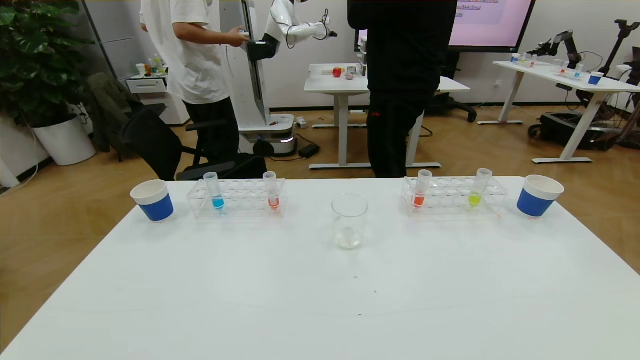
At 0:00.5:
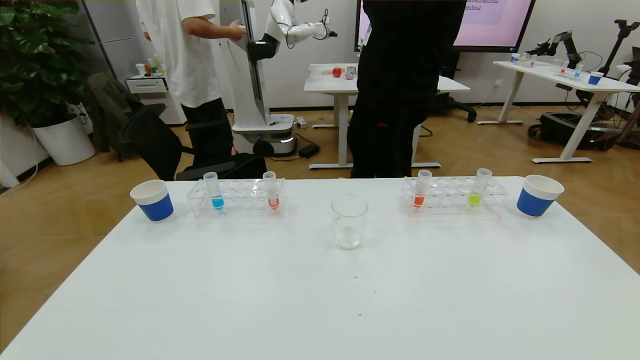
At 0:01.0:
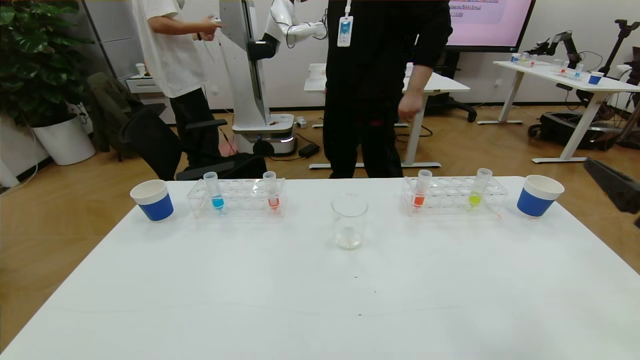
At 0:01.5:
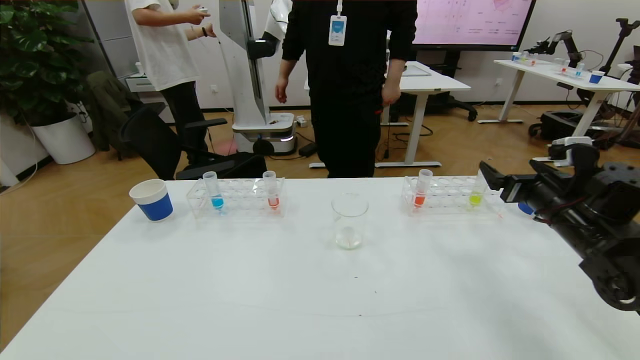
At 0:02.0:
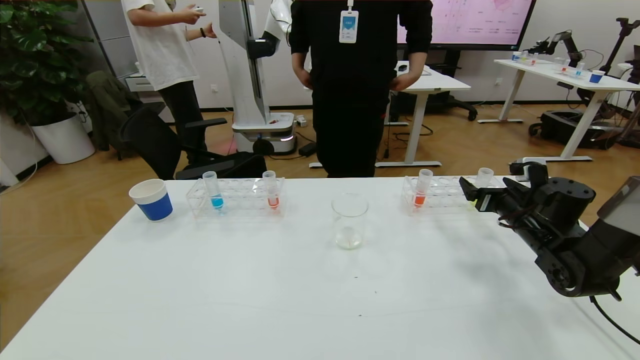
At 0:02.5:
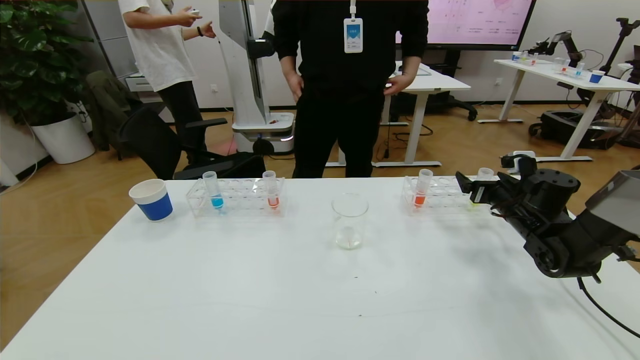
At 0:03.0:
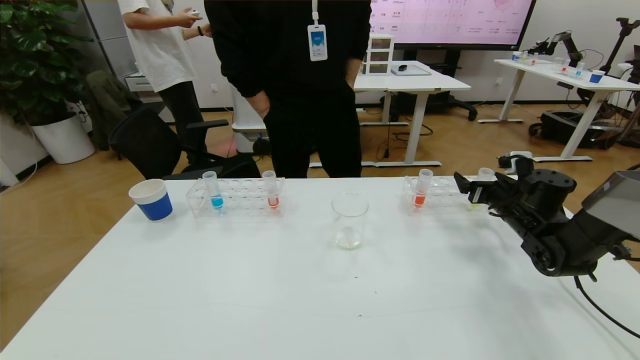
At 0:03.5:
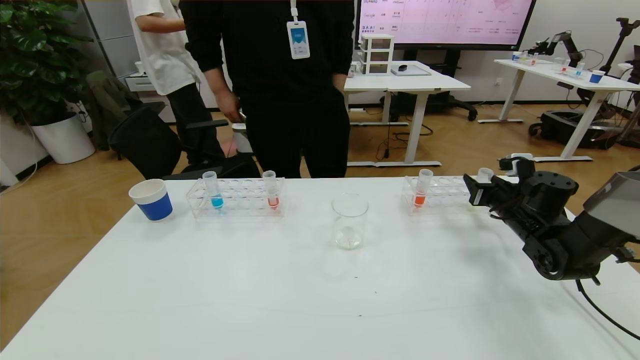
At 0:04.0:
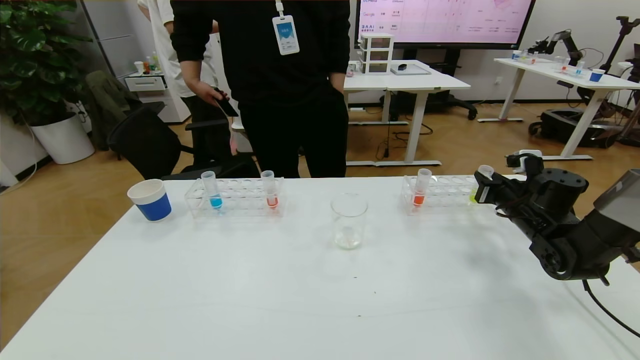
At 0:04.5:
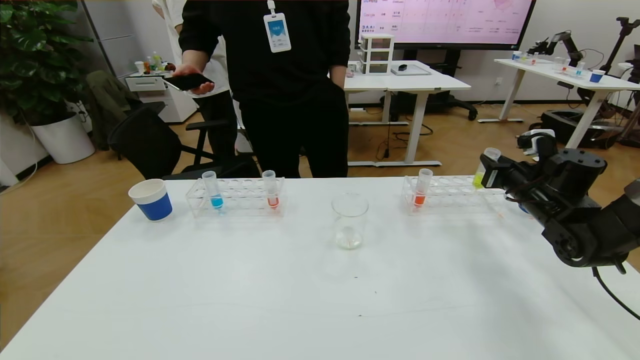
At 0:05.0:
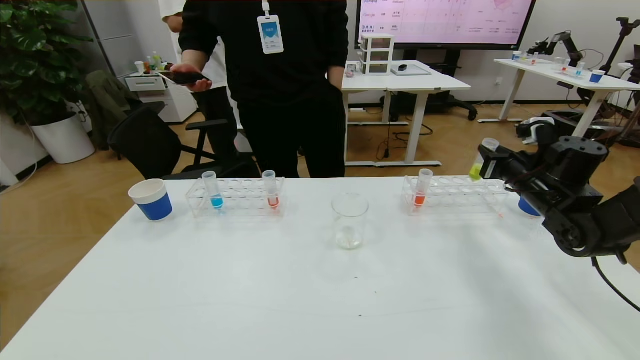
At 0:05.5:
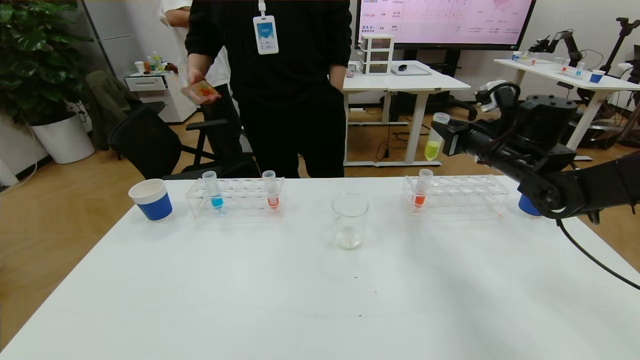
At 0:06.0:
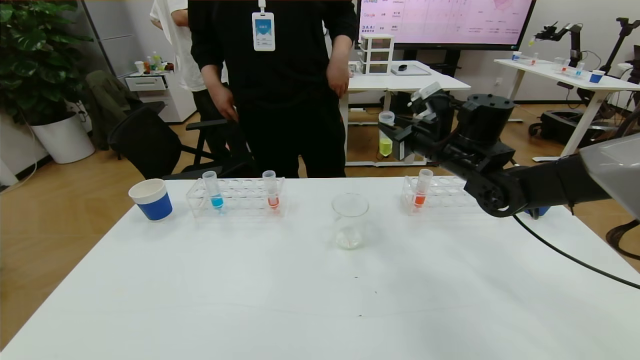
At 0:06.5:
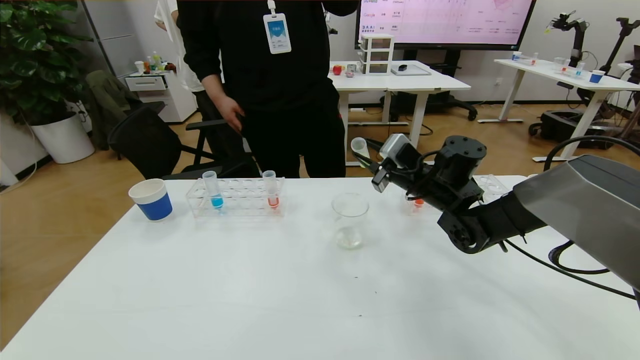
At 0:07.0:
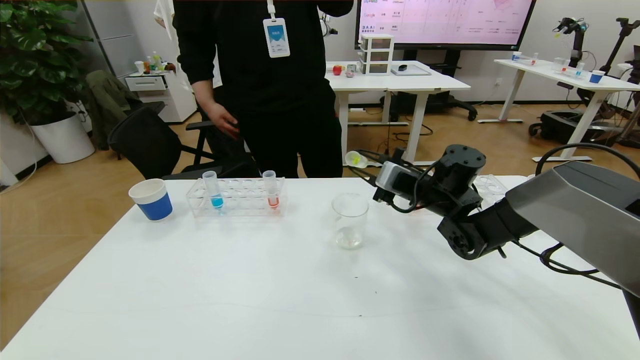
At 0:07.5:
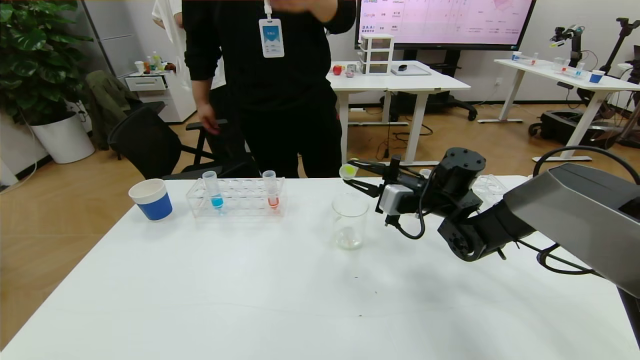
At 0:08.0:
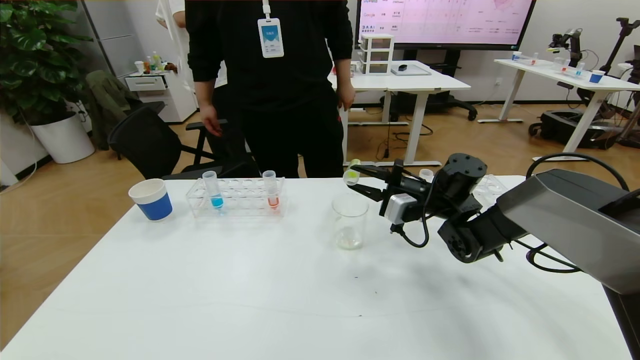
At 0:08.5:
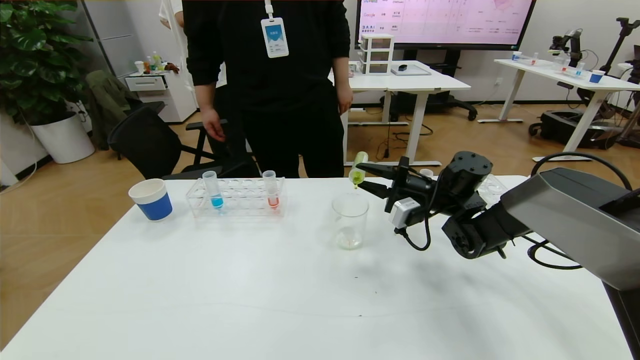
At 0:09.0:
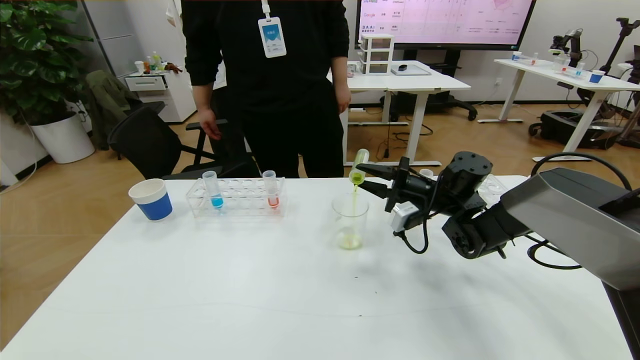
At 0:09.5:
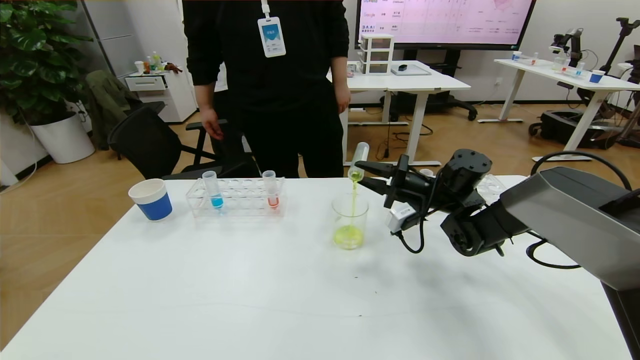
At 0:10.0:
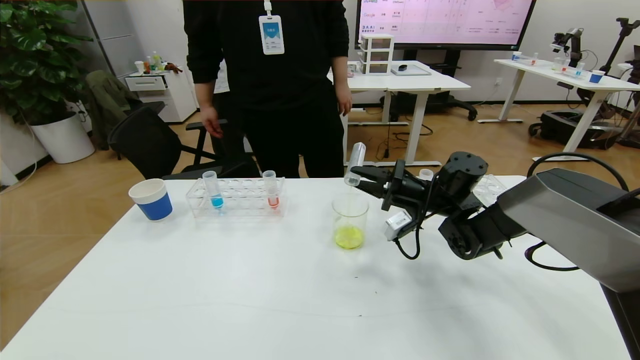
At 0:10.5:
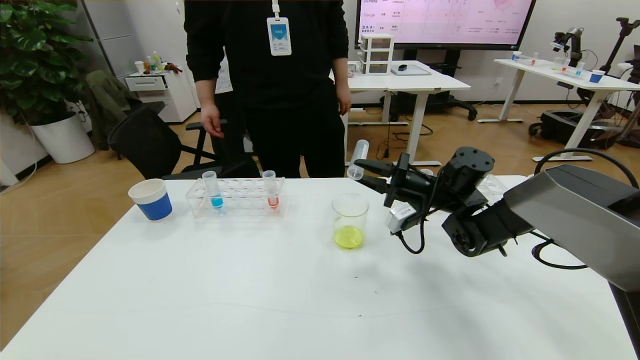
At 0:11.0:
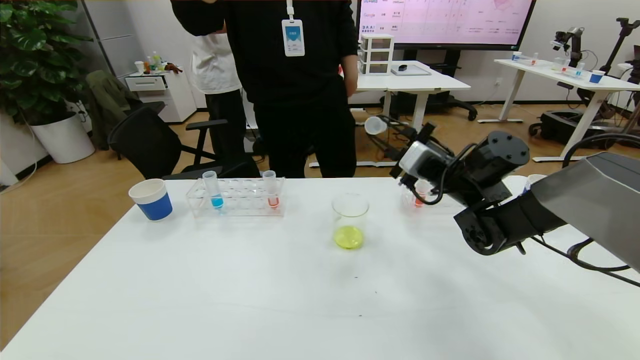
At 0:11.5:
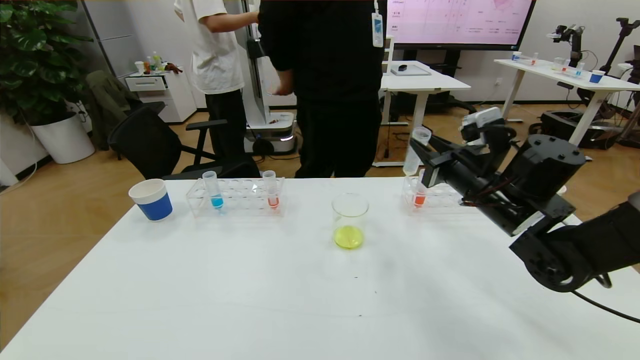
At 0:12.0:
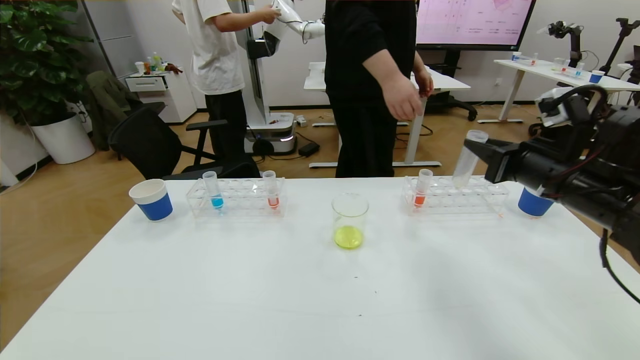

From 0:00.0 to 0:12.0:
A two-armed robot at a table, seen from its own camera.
Task of the whole recording: pick up the test tube with yellow pigment and the test tube with blue pigment by grippers and pour them into the beaker.
From 0:00.0 to 0:02.0: The right gripper heads forward, covering some 40 cm.
From 0:02.0 to 0:04.0: The right gripper closes.
From 0:04.0 to 0:06.0: The right gripper goes approximately 20 cm to the left and upward.
From 0:06.0 to 0:08.0: The right gripper goes about 10 cm downward.
From 0:10.0 to 0:12.0: The right gripper shifts approximately 20 cm backward, to the right and upward.

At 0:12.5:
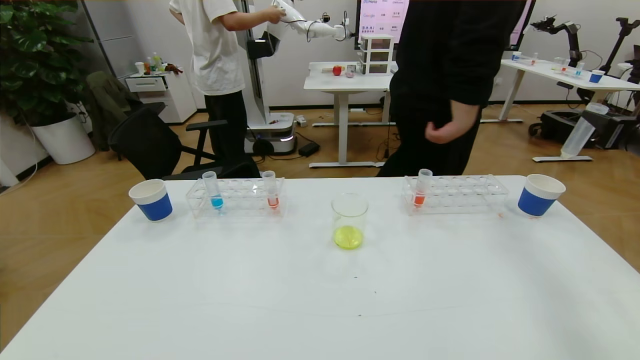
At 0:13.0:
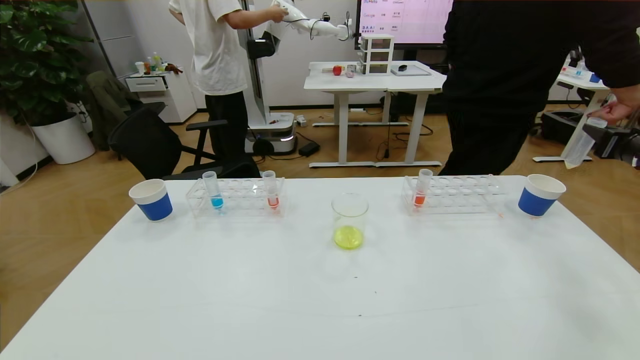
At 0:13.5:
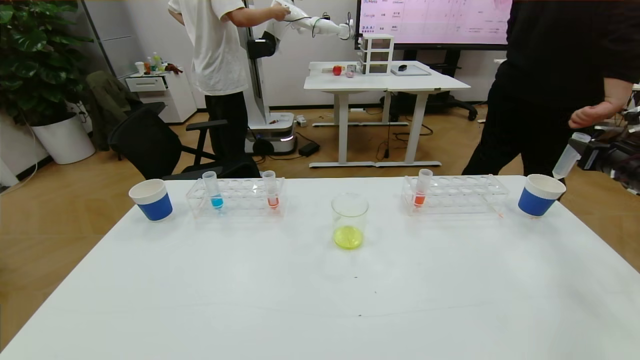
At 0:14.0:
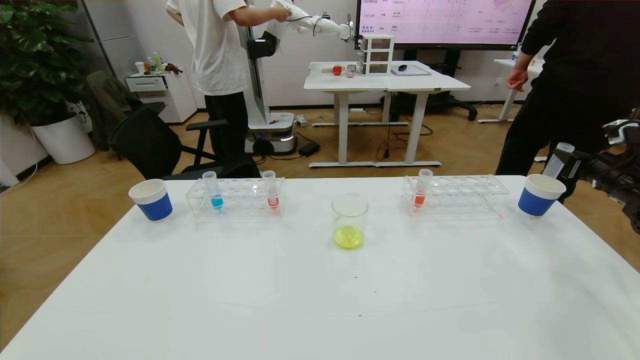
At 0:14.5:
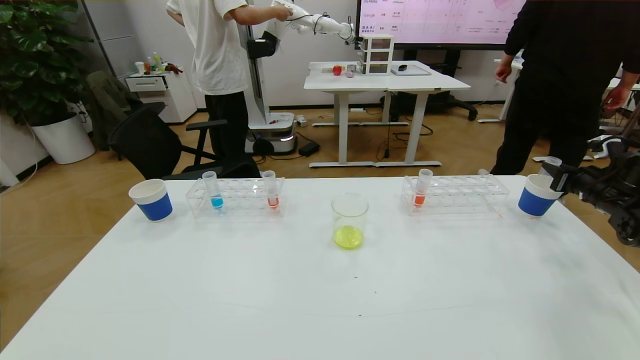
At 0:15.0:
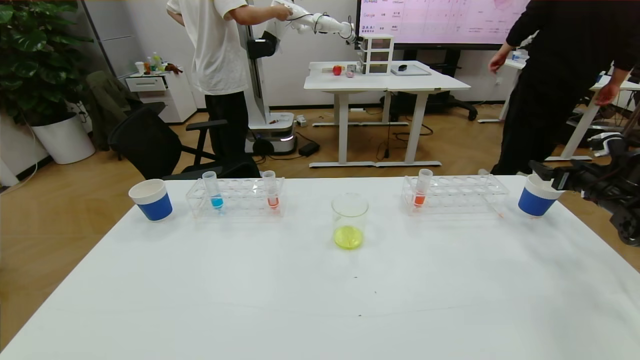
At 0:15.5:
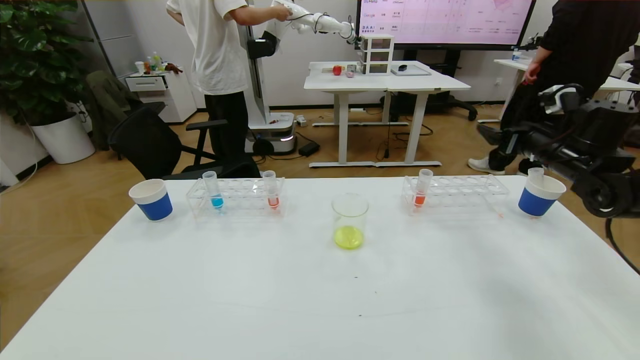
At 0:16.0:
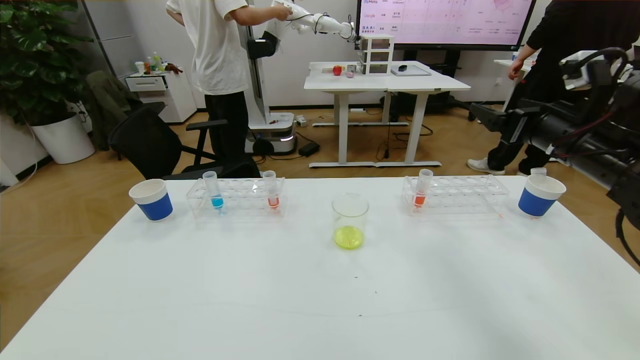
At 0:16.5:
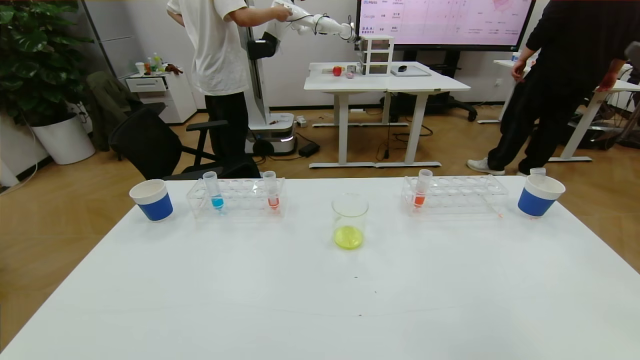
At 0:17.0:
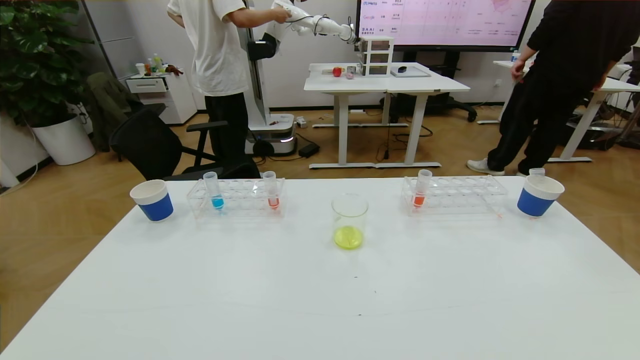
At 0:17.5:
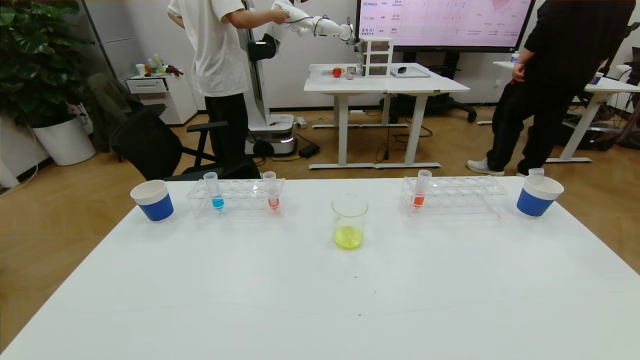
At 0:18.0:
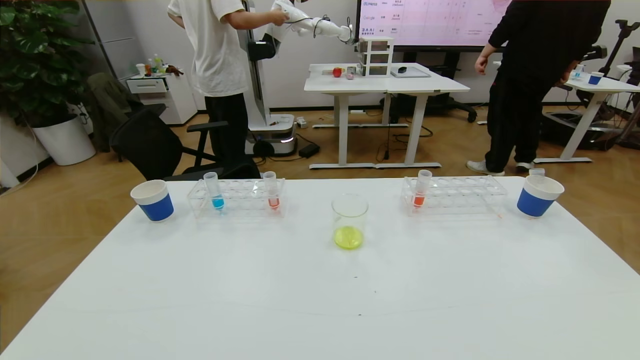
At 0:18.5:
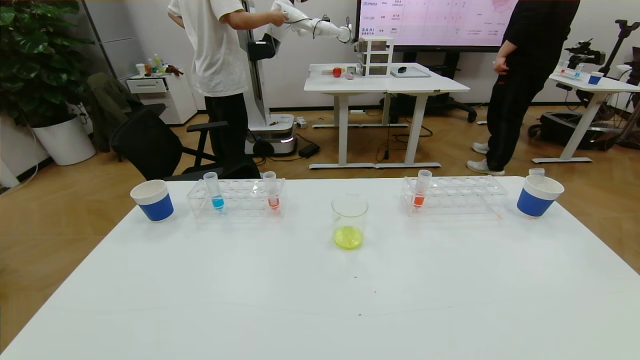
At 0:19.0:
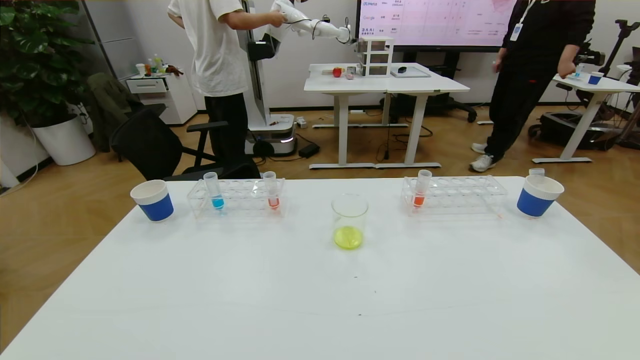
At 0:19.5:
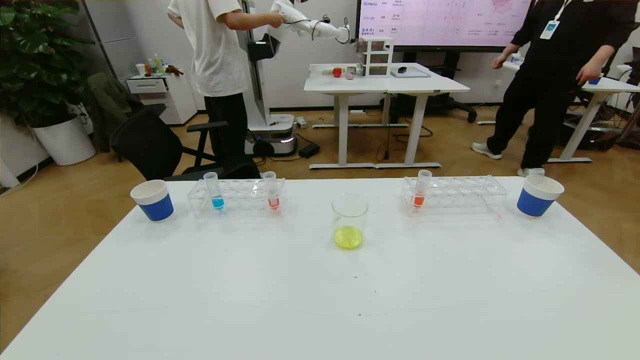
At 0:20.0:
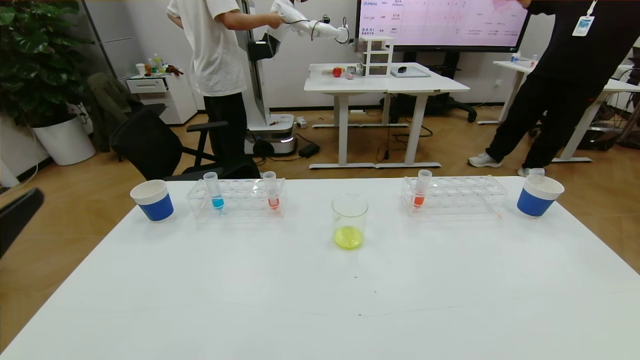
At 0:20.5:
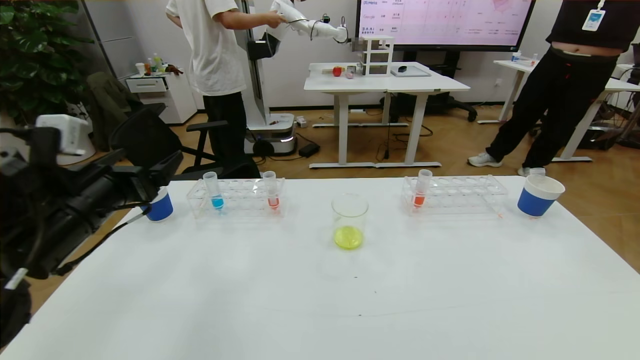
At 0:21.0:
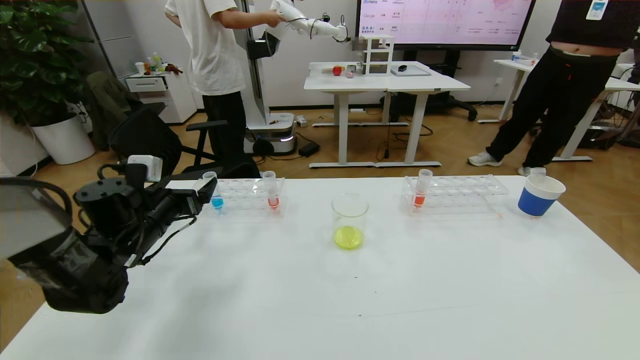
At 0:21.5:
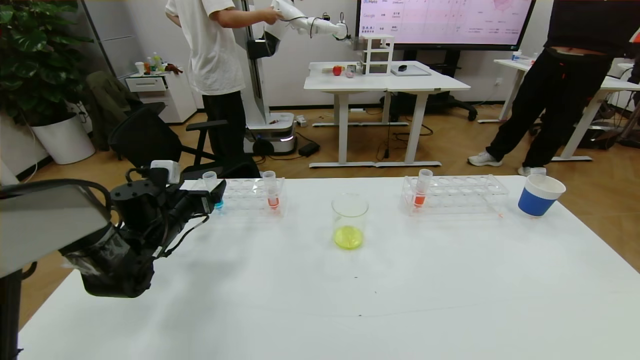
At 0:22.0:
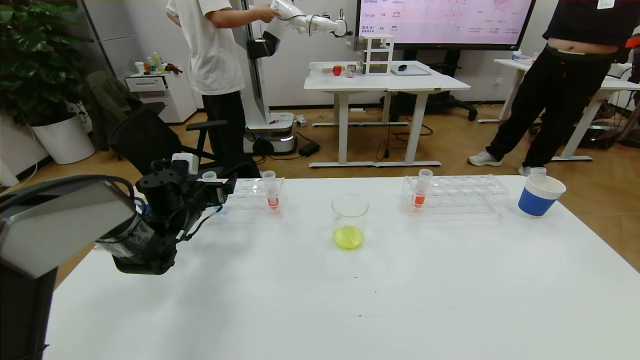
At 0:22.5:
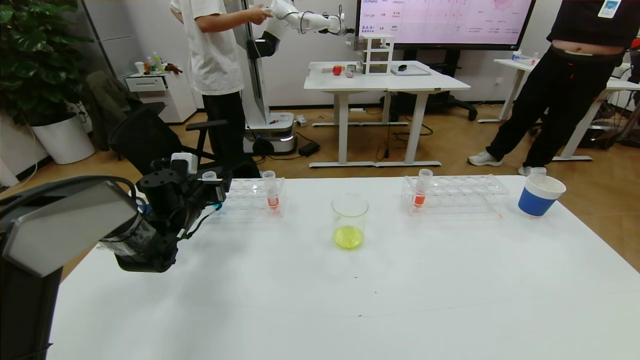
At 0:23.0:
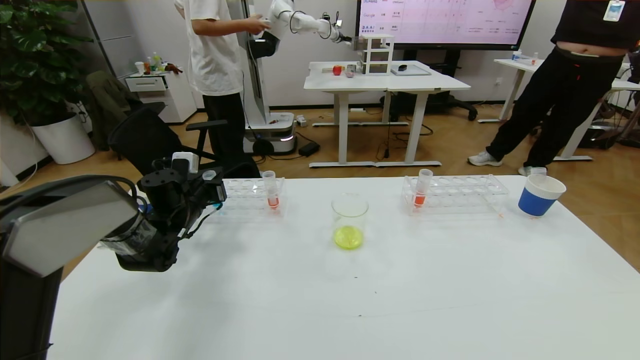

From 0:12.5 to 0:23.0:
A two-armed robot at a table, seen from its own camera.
Task of the whole recording: pick up the test tube with yellow pigment and the test tube with blue pigment by grippers and pour them into the beaker.
Step, from 0:12.5 to 0:18.5: Pour the yellow reagent into the graduated cylinder and place the test tube into the paper cup.
From 0:12.5 to 0:14.5: The right gripper shifts approximately 15 cm downward and forward.
From 0:14.5 to 0:16.5: The right gripper is displaced backward, upward and to the left by roughly 40 cm, and opens.
From 0:16.5 to 0:19.0: The right gripper goes about 30 cm downward and backward.
From 0:19.0 to 0:21.0: The left gripper travels forward by approximately 35 cm.
From 0:21.0 to 0:23.0: The left gripper shifts about 10 cm forward, and closes.
